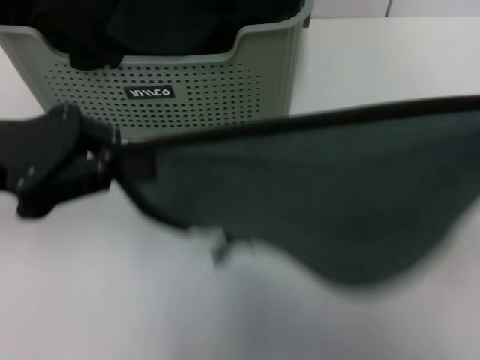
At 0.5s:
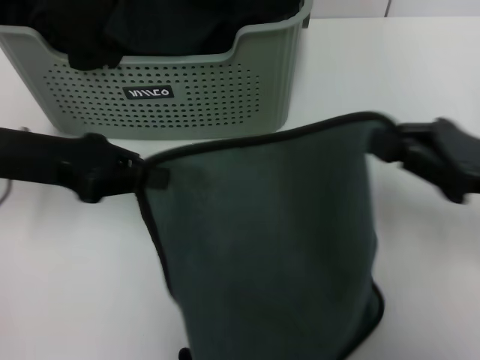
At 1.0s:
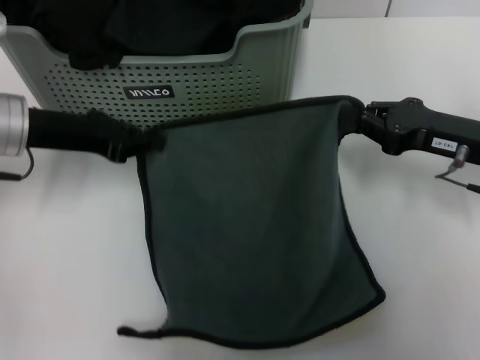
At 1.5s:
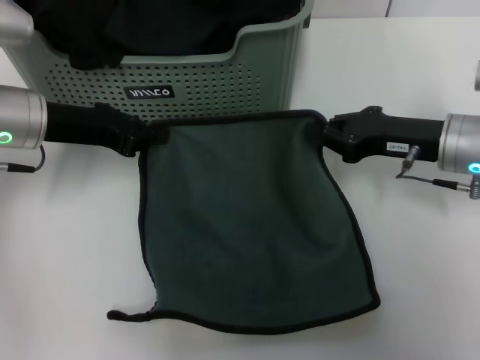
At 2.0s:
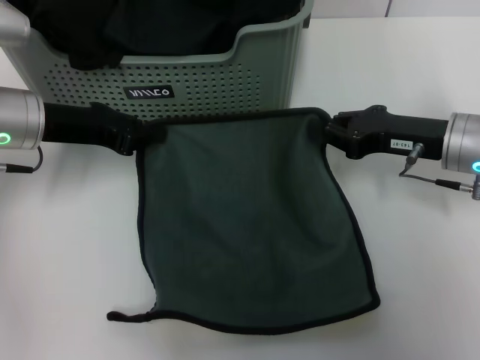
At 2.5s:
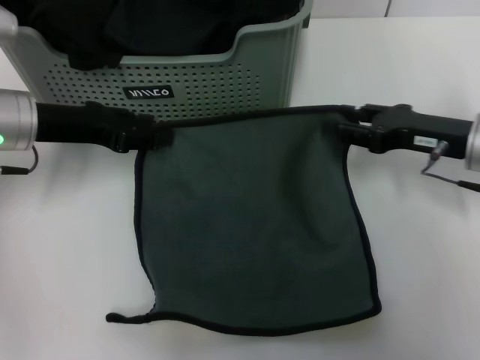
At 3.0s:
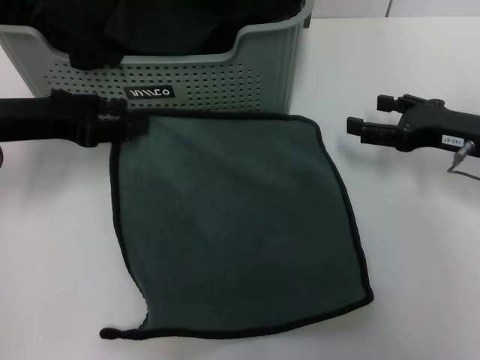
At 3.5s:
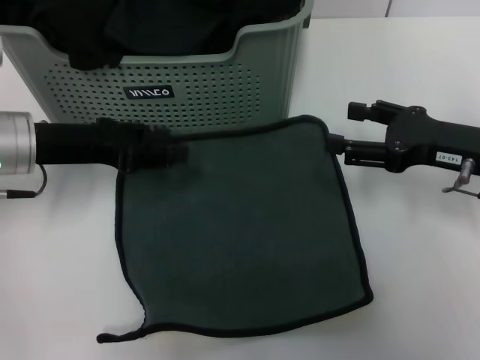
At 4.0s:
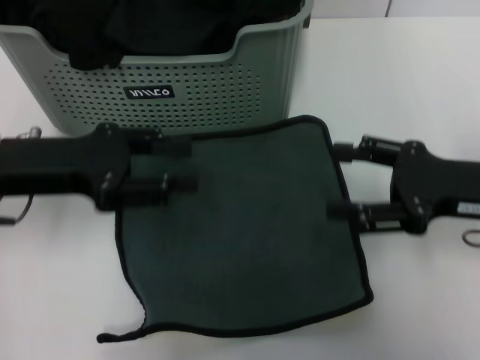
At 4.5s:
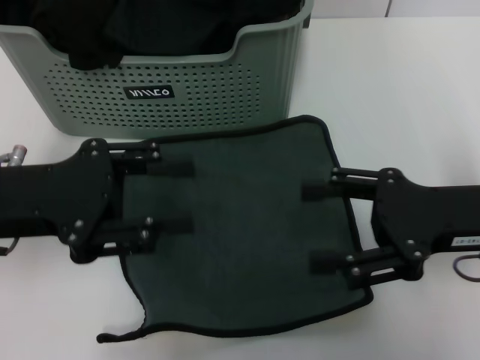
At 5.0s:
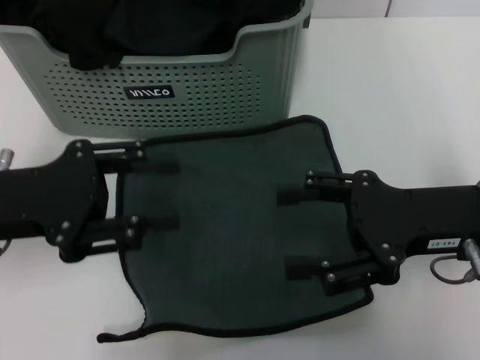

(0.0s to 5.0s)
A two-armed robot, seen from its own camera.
Task of the whole recording: pick up the towel from the storage box and lay it flat on the table.
Step, 0.0s - 3.5s: Spread the towel flat with the right gripper.
0.0s - 2.5s: The right gripper shifts approximately 20 cm forward, downward and to the left. Meanwhile the left gripper is displaced forward and downward by approximately 10 cm, and opens.
2.5s - 5.0s: Both grippers move backward, roughly 10 cm. The right gripper opens its fingers. Meanwhile the left gripper opens.
